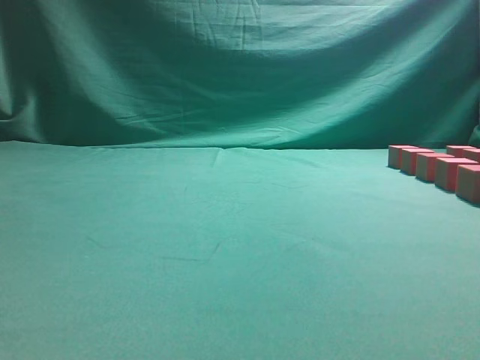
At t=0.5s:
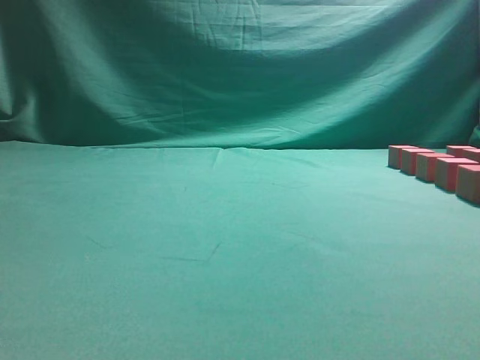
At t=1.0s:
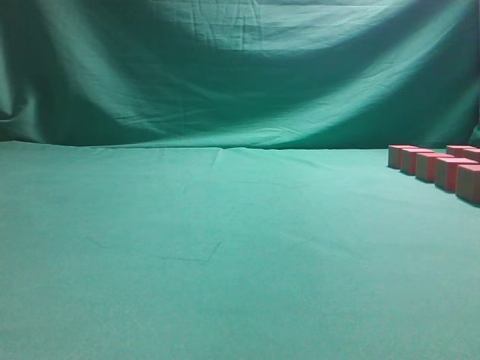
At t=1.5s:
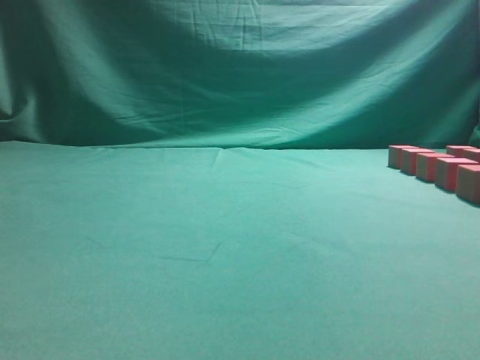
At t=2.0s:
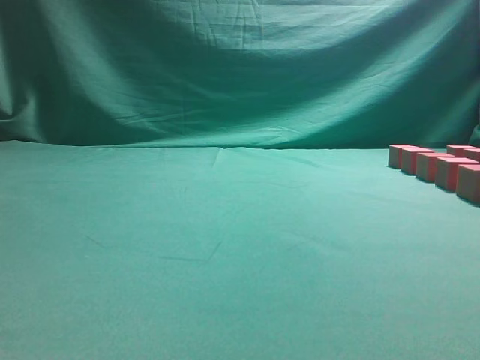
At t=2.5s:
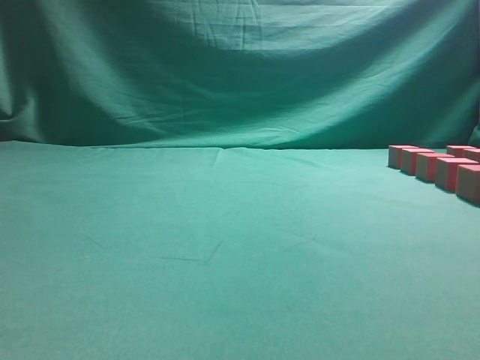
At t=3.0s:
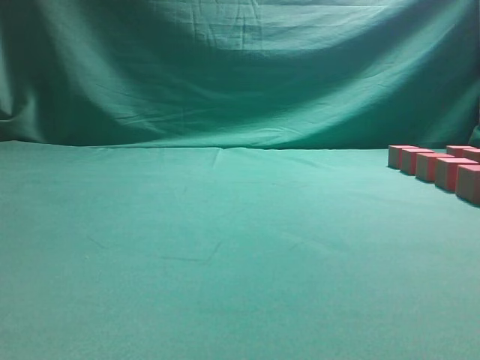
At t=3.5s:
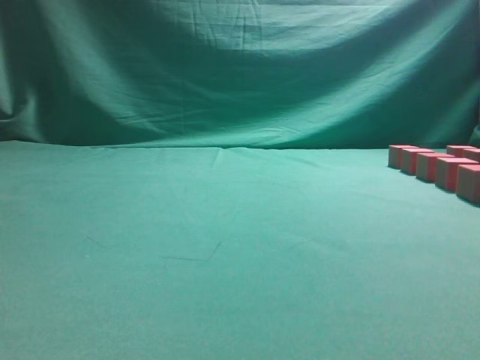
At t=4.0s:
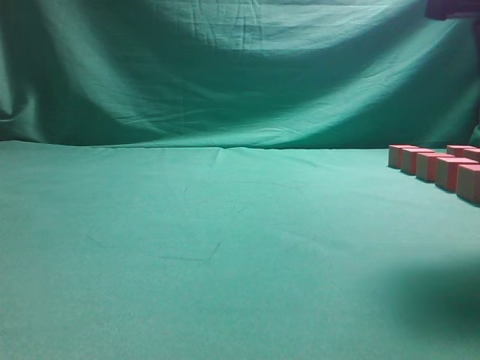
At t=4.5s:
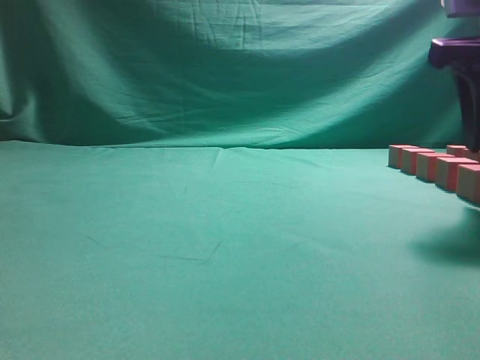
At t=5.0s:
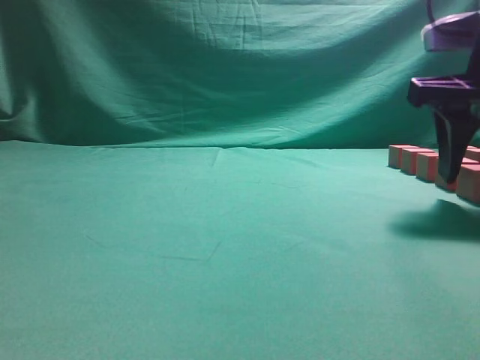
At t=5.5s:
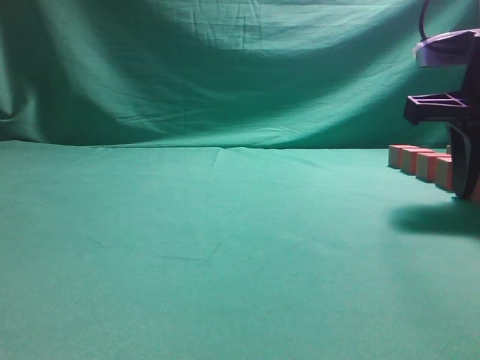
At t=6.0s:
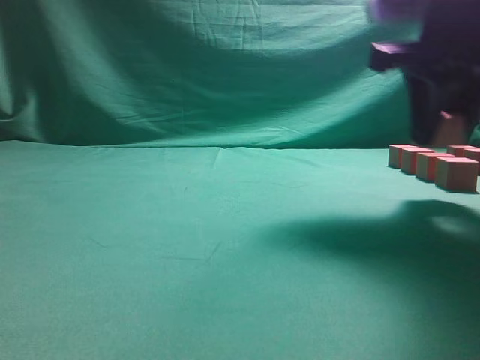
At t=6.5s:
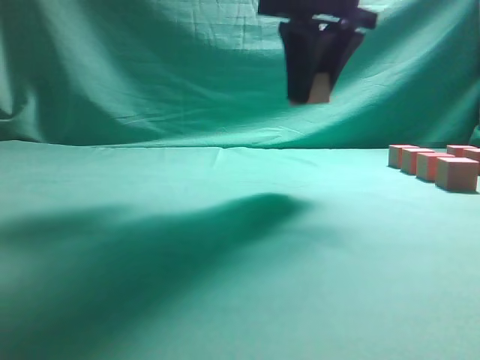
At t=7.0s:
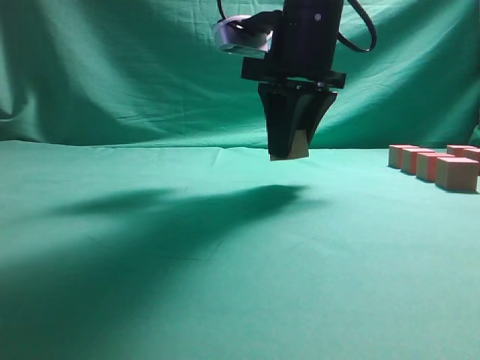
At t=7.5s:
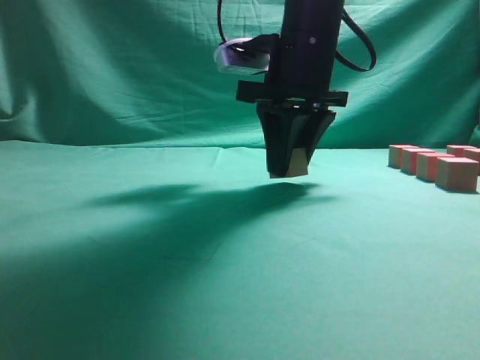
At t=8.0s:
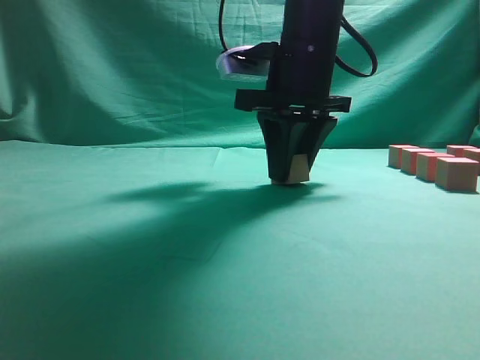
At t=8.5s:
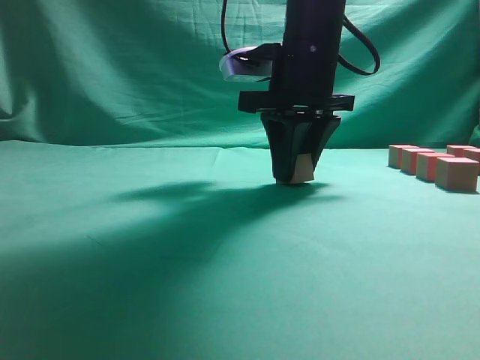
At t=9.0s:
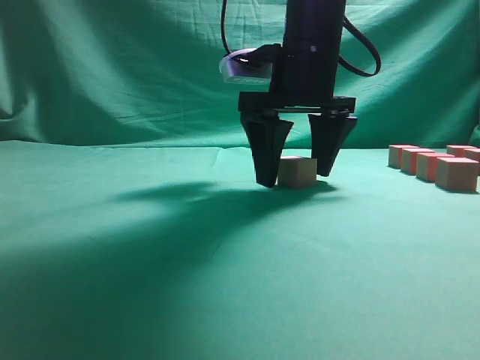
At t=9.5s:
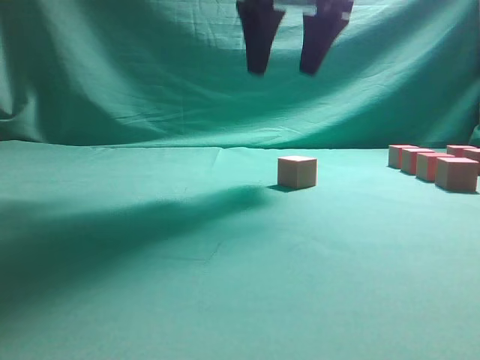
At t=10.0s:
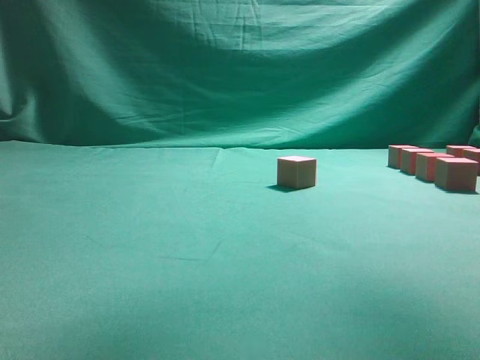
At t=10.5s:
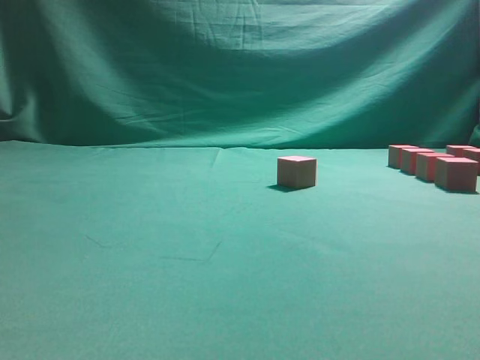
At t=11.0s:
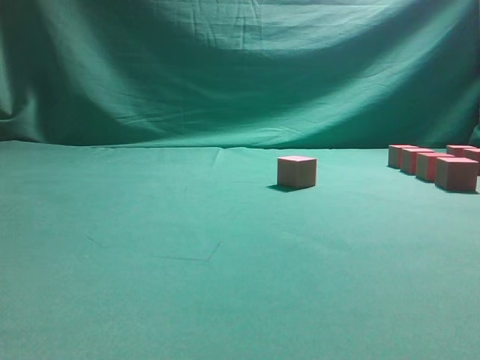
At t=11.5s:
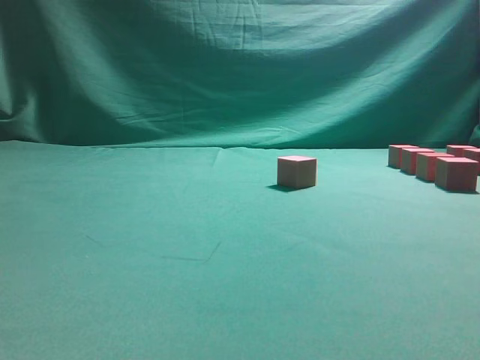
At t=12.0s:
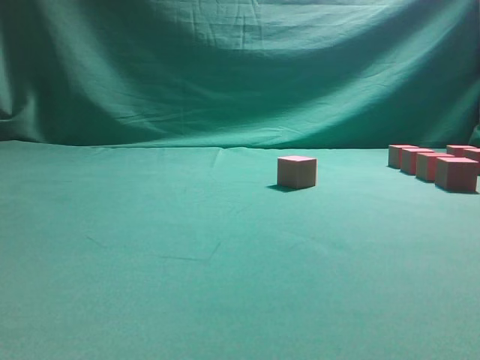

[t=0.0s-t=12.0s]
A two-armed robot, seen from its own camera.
Task of the whole recording: pick up the multiple cubes in two columns one by one and place them in another position on the table.
Step, t=0.0s to t=5.5s: Pick up the block on the table.
Step, t=6.0s to t=9.5s: Place the block at the correct position to assemble the letter S.
t=2.0s to t=4.0s: The right gripper goes approximately 20 cm forward and to the left.
t=4.0s to t=6.0s: The right gripper moves approximately 5 cm, and opens, then closes once more.
t=6.0s to t=8.0s: The right gripper shifts some 15 cm to the left and forward.
t=8.0s to t=10.0s: The right gripper goes about 25 cm upward and to the right, and opens up.
t=10.0s to t=12.0s: The right gripper travels downward and to the right by about 30 cm, and closes its fingers.

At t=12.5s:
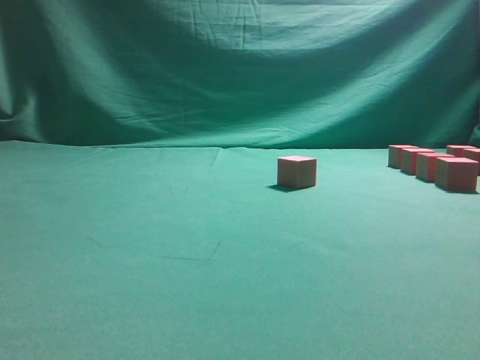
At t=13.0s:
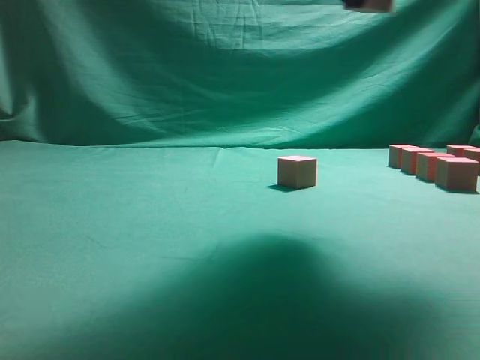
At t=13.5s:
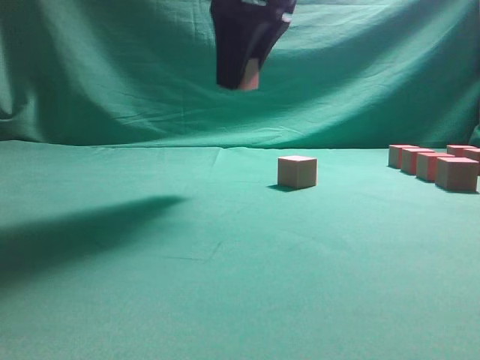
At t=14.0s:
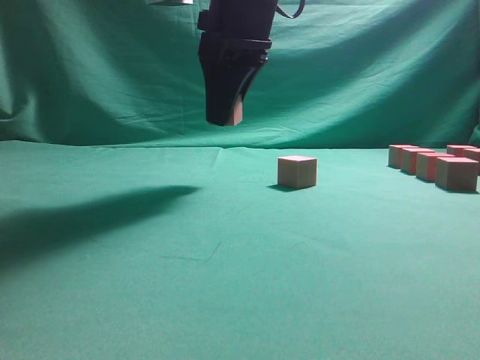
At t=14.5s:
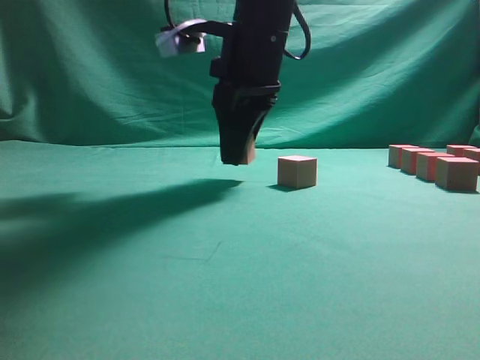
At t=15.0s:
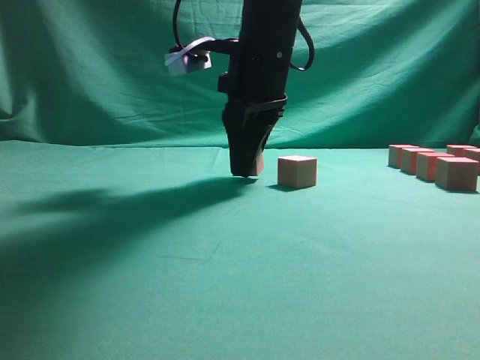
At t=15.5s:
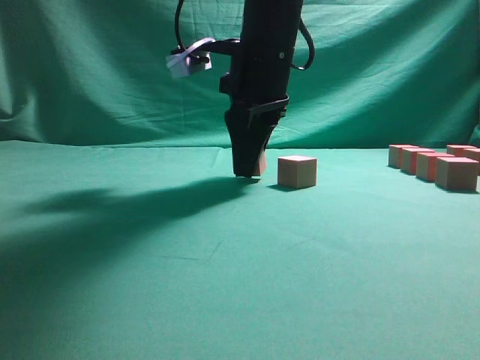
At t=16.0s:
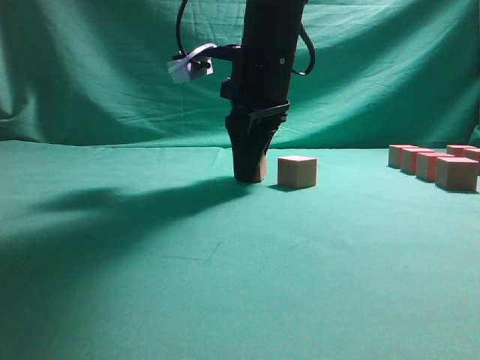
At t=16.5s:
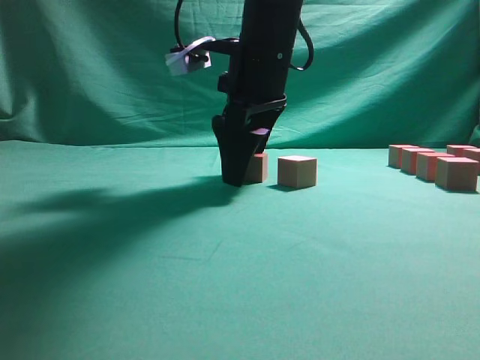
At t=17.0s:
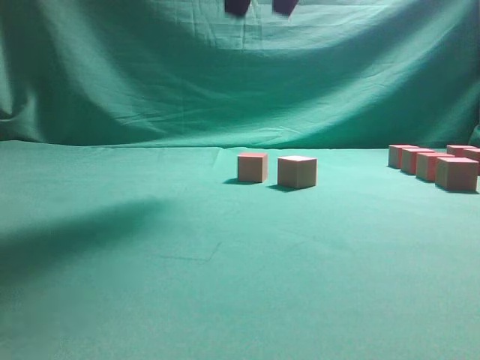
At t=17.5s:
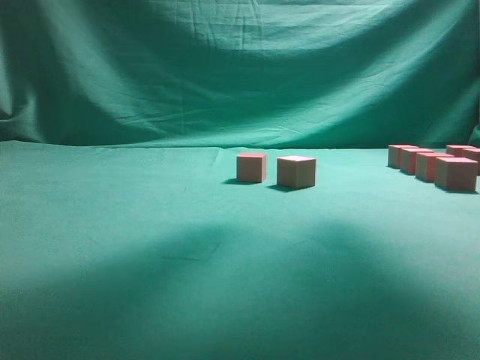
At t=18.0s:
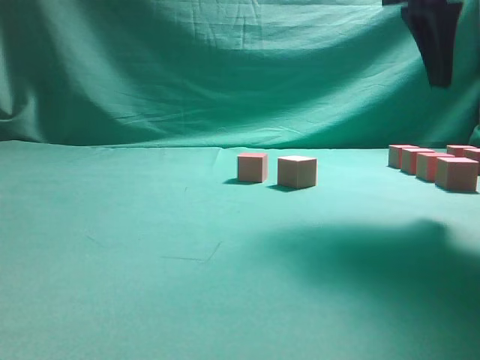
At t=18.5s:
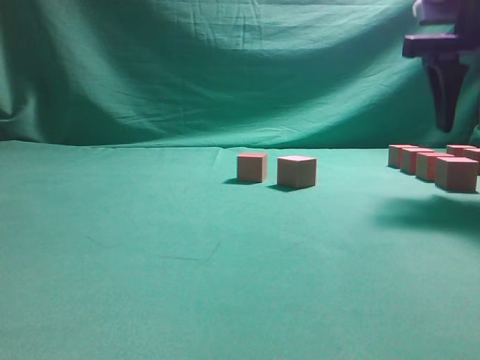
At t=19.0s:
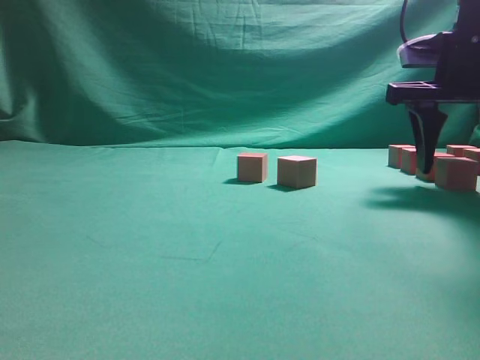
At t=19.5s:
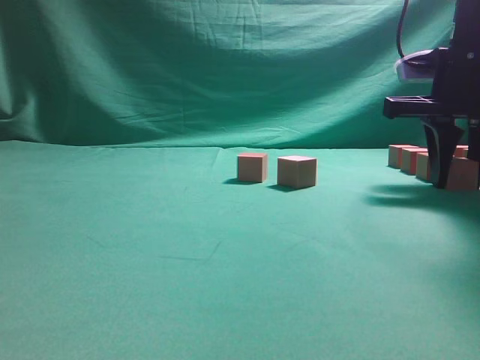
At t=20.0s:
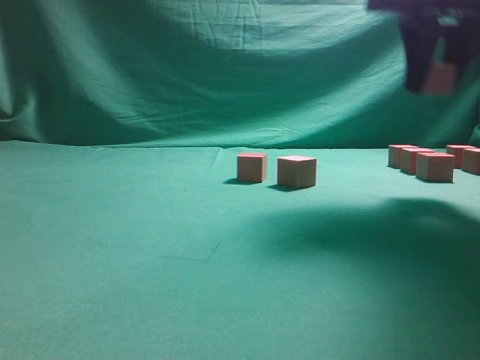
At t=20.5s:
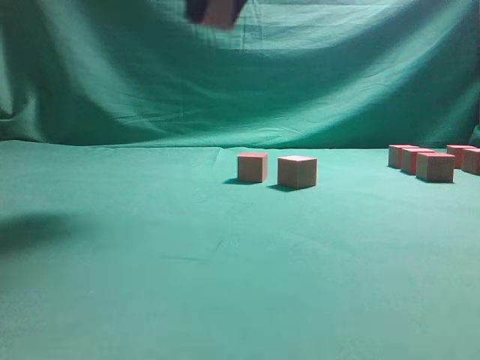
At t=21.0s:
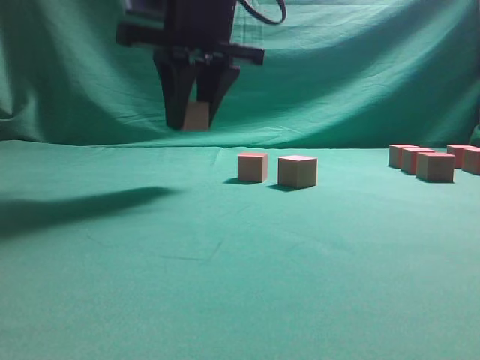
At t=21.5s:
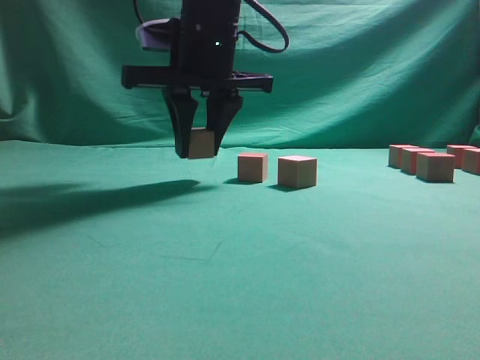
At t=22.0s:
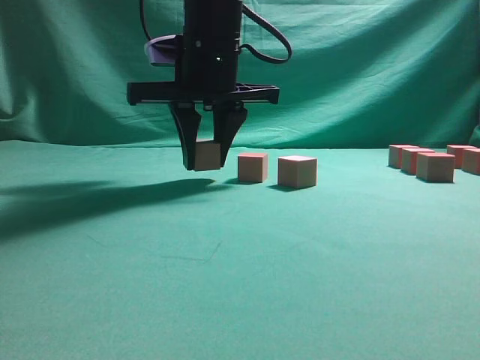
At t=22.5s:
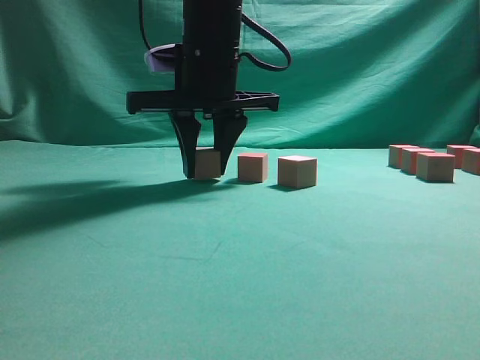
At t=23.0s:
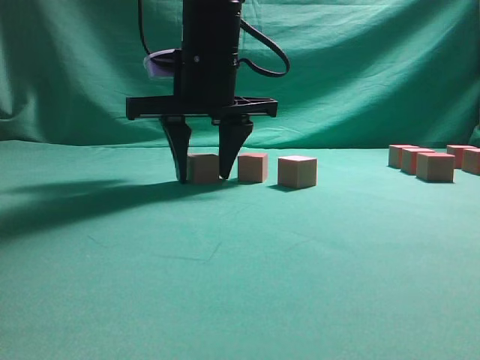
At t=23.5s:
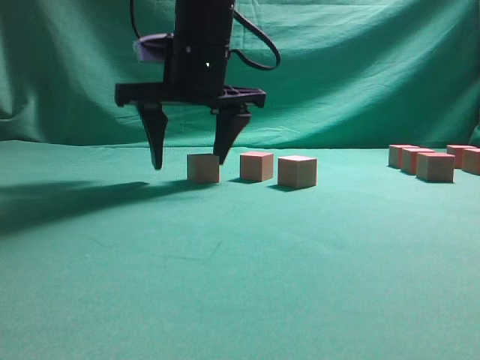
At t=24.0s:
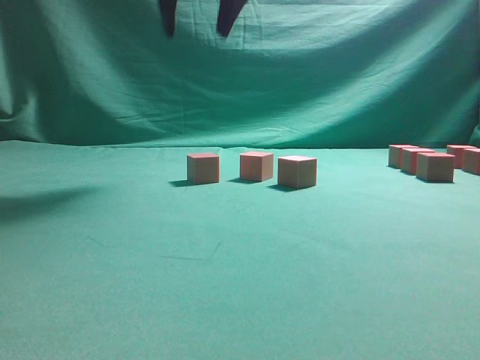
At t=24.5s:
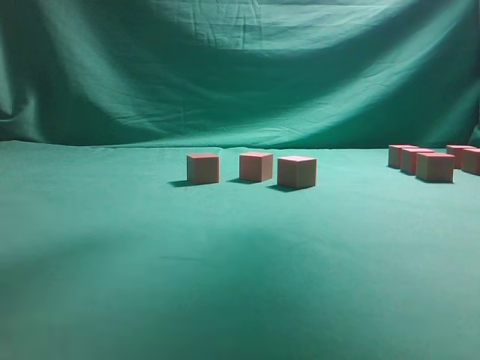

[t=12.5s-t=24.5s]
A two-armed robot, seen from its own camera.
Task of the whole recording: pick up the multiple cubes in two columns one by one and place them in another position on the table.
Step, t=12.5s to t=16.5s: Place the block at the correct position to assemble the letter S.
Step, t=17.0s to t=19.5s: Pick up the block on the table.
Step, t=20.0s to t=23.5s: Place the block at the correct position to assemble the letter S.
t=12.5s to t=14.5s: The right gripper travels to the left by some 25 cm.
t=14.5s to t=16.5s: The right gripper opens its fingers.
t=16.5s to t=18.5s: The right gripper shifts some 20 cm to the right.
t=18.5s to t=20.5s: The right gripper is displaced to the left and upward by some 25 cm, and closes up.
t=20.5s to t=22.5s: The right gripper is displaced downward by approximately 15 cm.
t=22.5s to t=24.5s: The right gripper is displaced upward and to the right by roughly 30 cm, and opens up.

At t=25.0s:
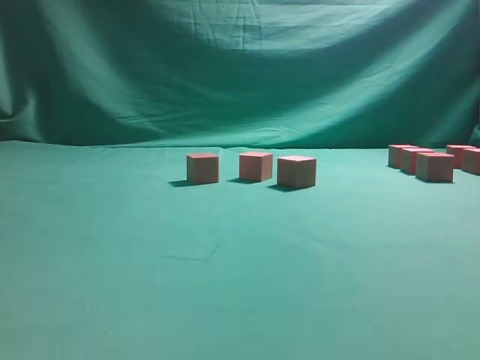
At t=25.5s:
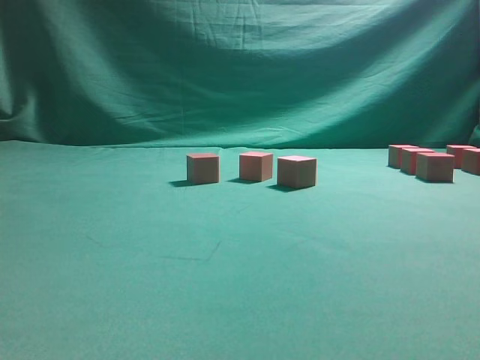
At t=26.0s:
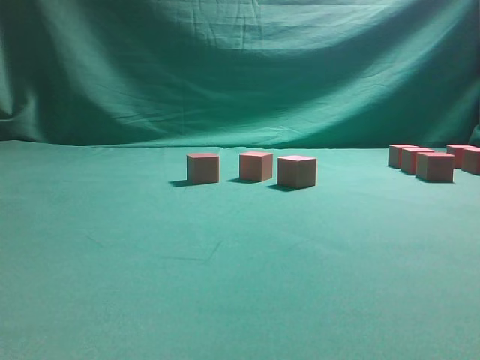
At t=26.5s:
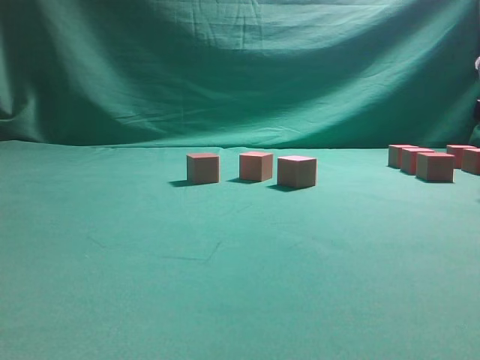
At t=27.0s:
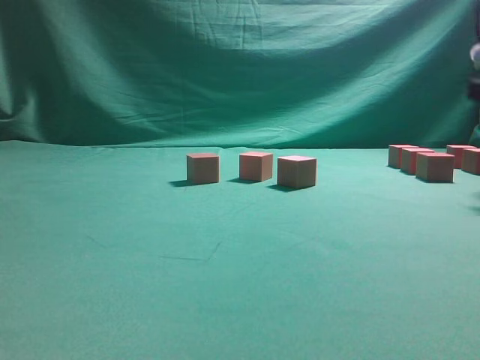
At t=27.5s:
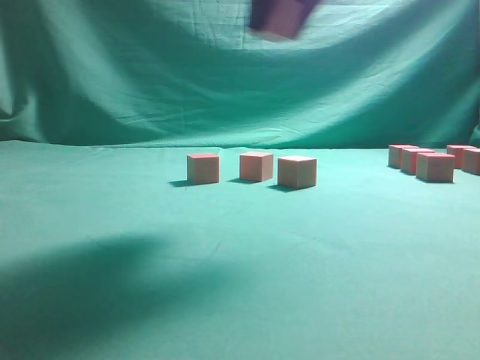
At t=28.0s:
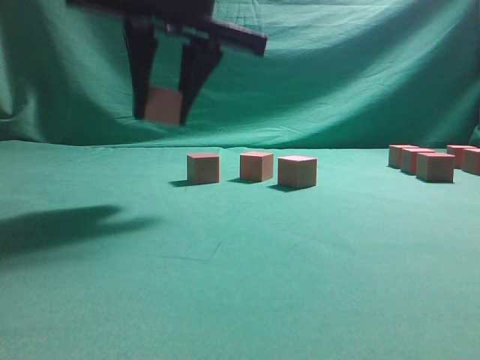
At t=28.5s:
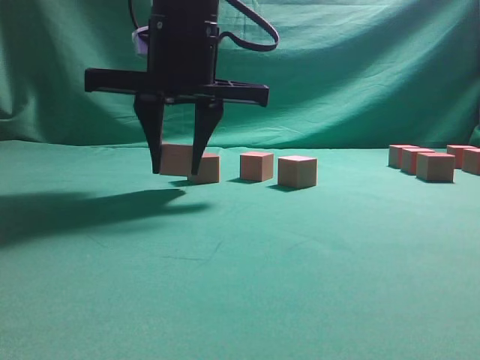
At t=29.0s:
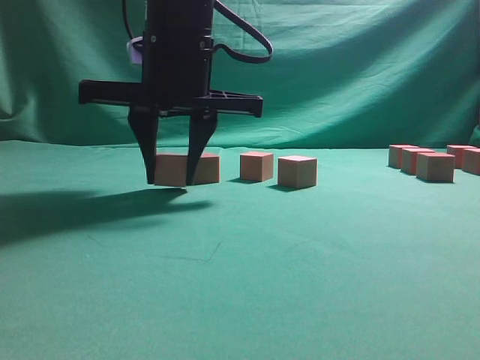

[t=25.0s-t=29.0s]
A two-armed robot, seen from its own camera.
Task of the whole recording: pick up the multiple cubes in two columns one by one and place them in another position on the table.
t=27.0s to t=29.0s: The right gripper is displaced to the left by some 35 cm.
